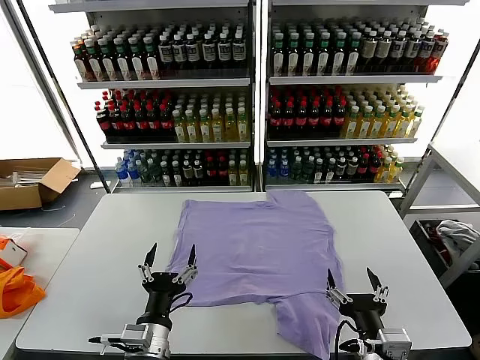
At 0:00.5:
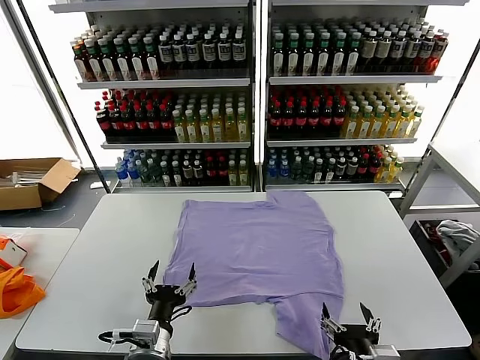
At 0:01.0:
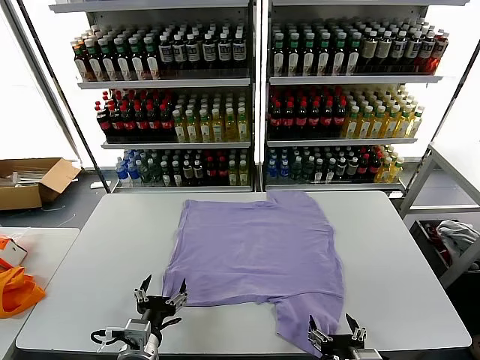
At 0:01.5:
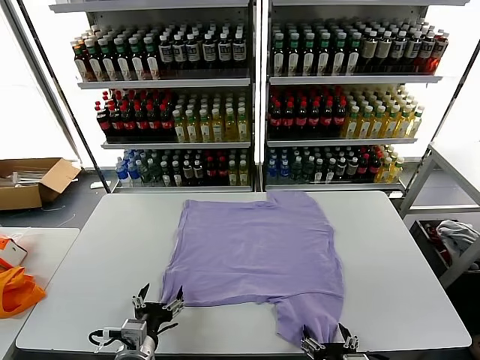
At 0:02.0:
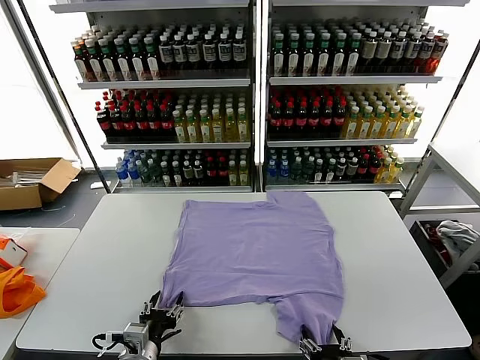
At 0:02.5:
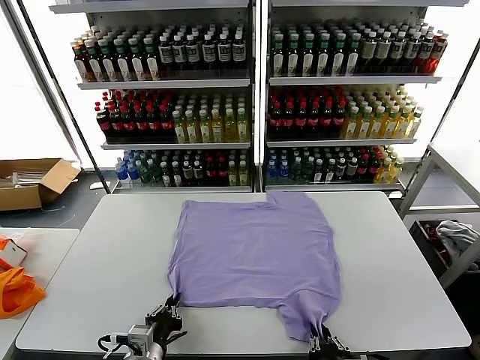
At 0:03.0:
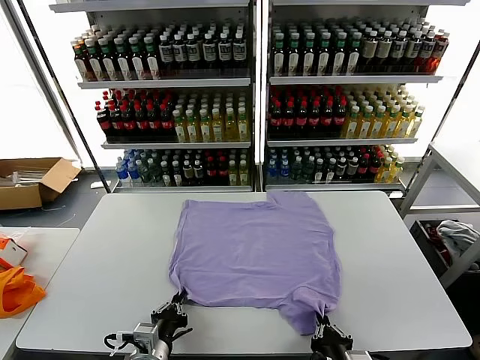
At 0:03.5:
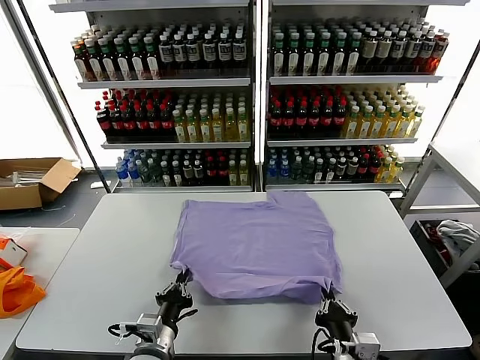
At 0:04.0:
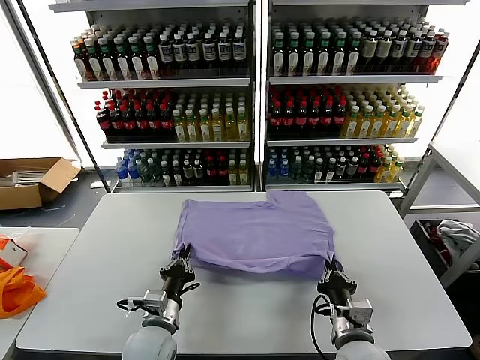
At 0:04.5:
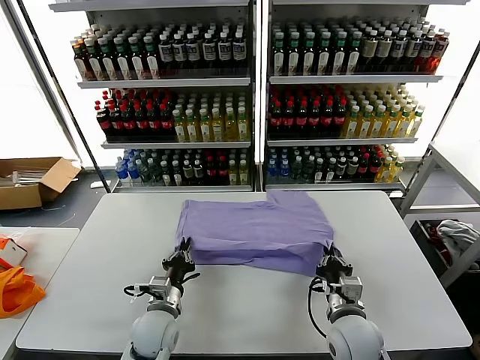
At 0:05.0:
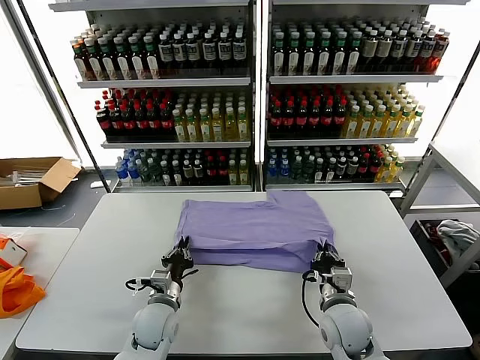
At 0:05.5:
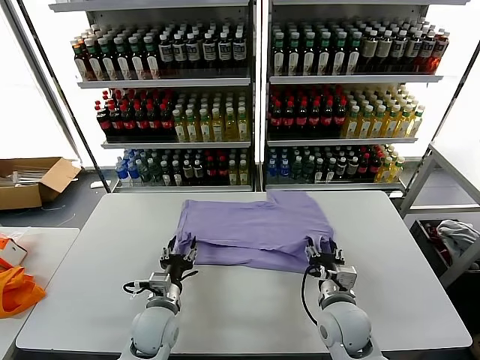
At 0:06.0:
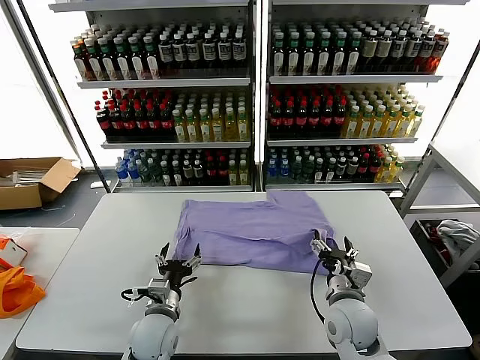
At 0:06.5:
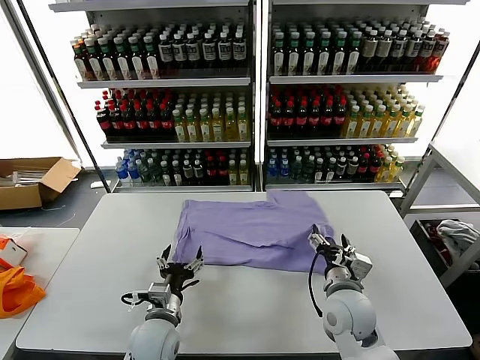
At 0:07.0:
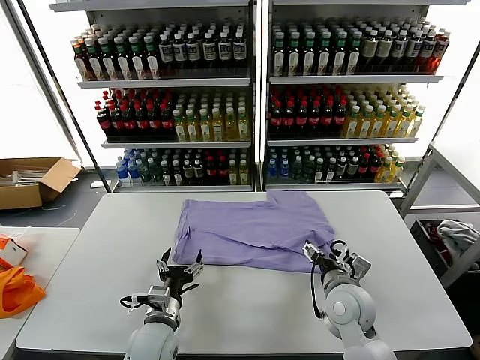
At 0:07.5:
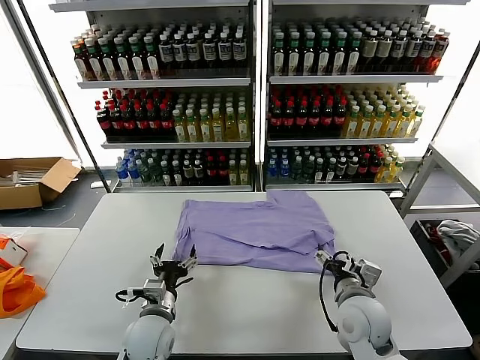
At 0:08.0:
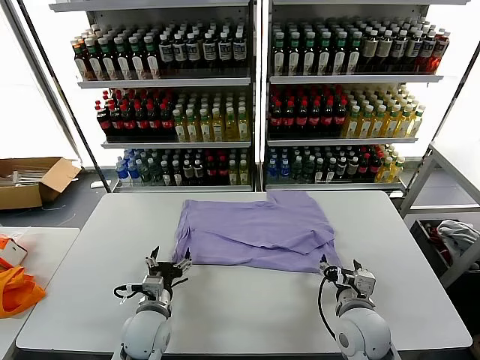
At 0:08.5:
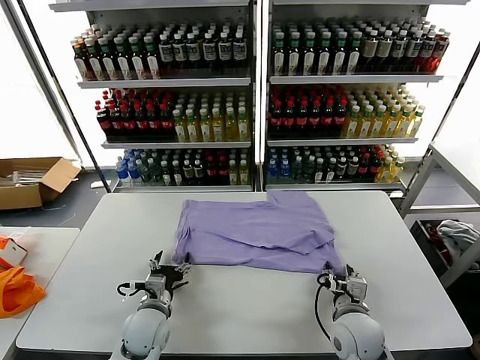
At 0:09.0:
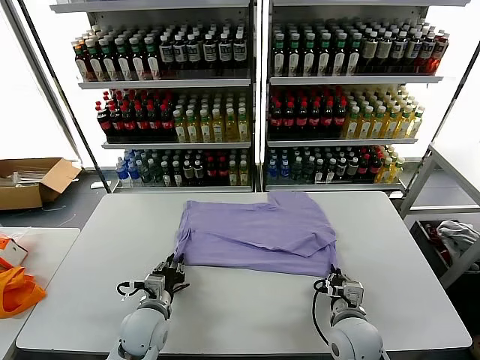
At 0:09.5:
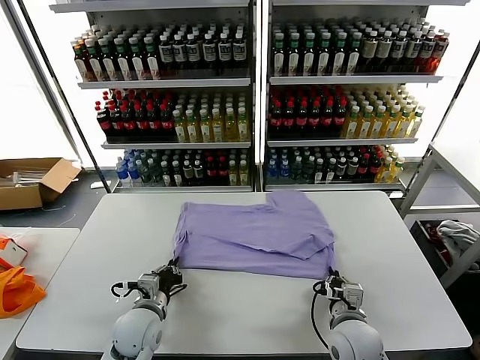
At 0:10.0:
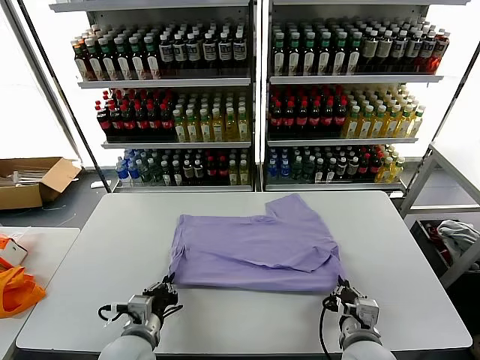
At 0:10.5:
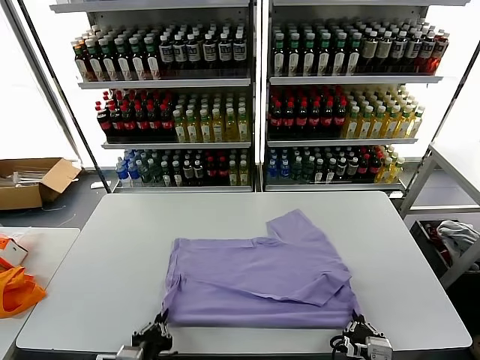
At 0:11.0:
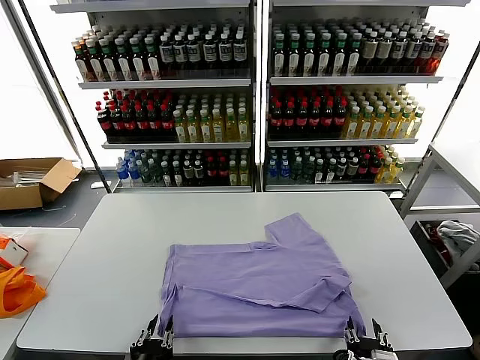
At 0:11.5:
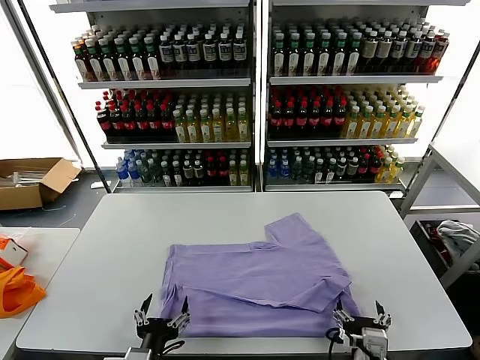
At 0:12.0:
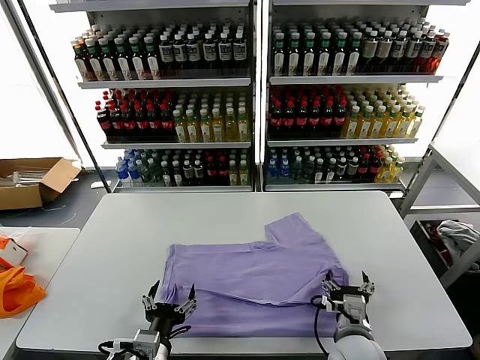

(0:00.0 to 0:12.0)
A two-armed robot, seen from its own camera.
Task of the whole recording: fold and organize the clothes.
Step, 0:00.0 - 0:03.0: use both grippers simultaneously to clamp the lower edge of the clothing fabric.
Step, 0:03.5 - 0:06.5: use both grippers to drag the lower edge of the fabric forward and fold it over the upper edge.
Step, 0:07.0 - 0:11.0: Drag the clothes downward with both gripper.
0:02.0 - 0:04.0: The left gripper shifts roughly 10 cm forward, and closes. The right gripper shifts roughly 10 cm forward, and closes up.
0:04.0 - 0:06.0: The left gripper opens up, while the right gripper moves forward, roughly 5 cm, and opens its fingers.
0:08.0 - 0:10.0: The grippers both shift backward by about 5 cm. The left gripper closes. Meanwhile the right gripper closes its fingers.
0:10.0 - 0:12.0: The left gripper goes approximately 5 cm backward, and opens, while the right gripper shifts by approximately 5 cm, and opens.

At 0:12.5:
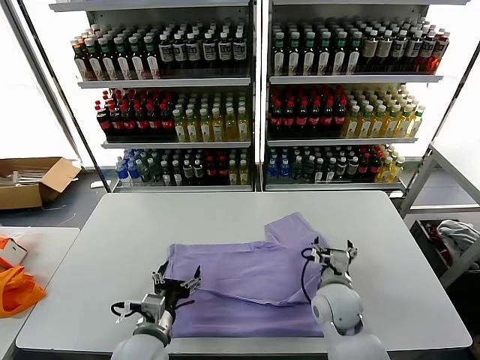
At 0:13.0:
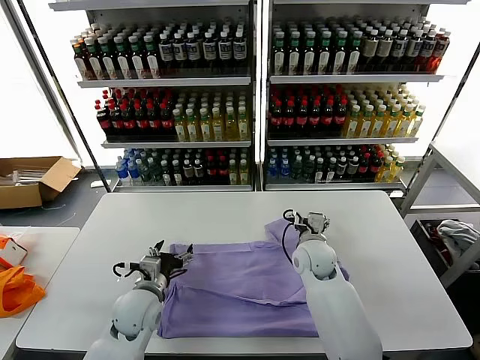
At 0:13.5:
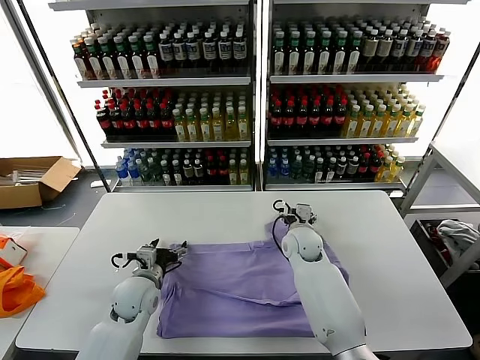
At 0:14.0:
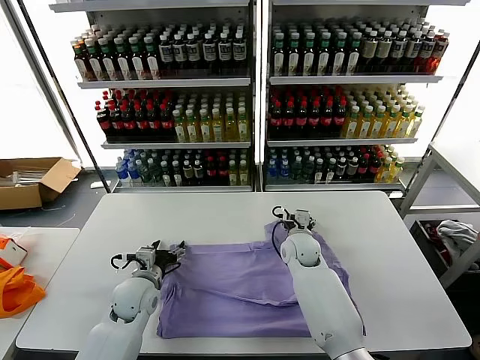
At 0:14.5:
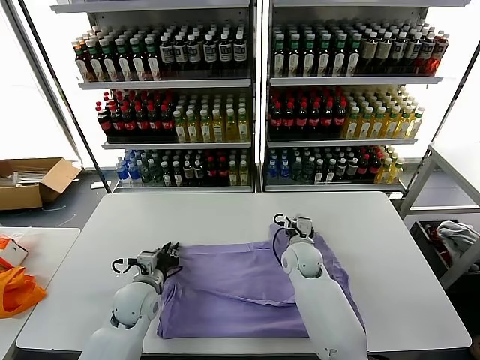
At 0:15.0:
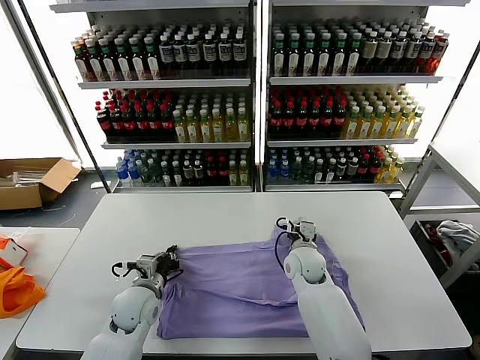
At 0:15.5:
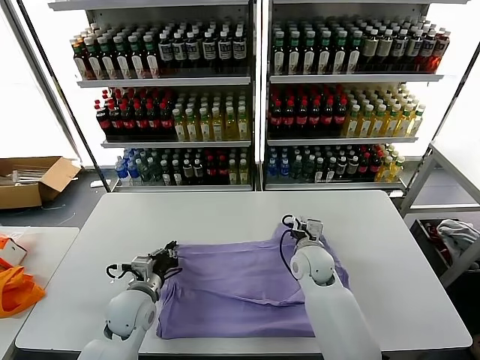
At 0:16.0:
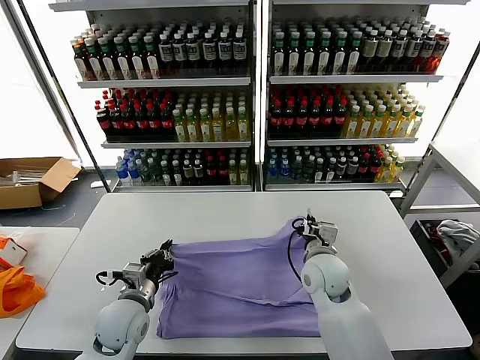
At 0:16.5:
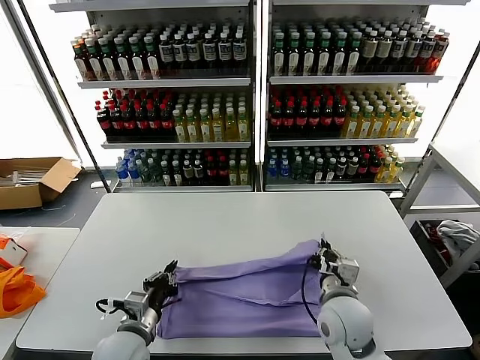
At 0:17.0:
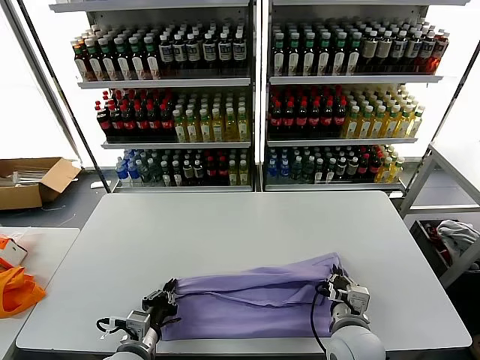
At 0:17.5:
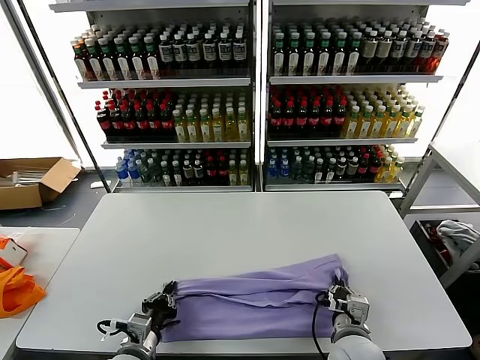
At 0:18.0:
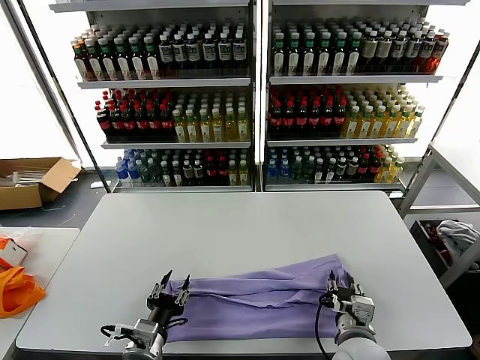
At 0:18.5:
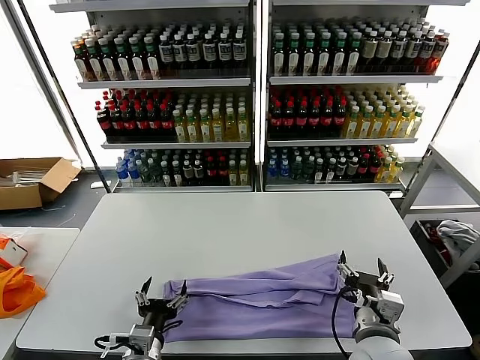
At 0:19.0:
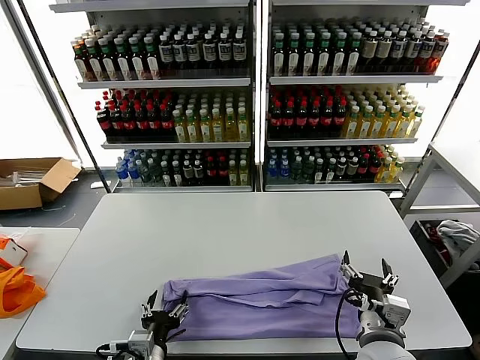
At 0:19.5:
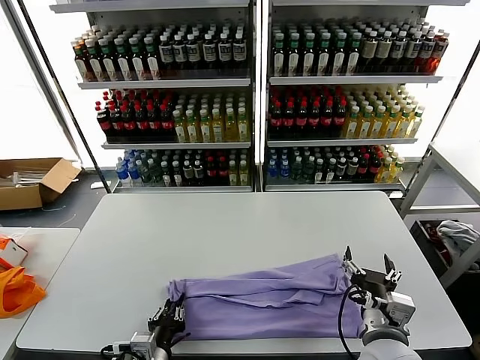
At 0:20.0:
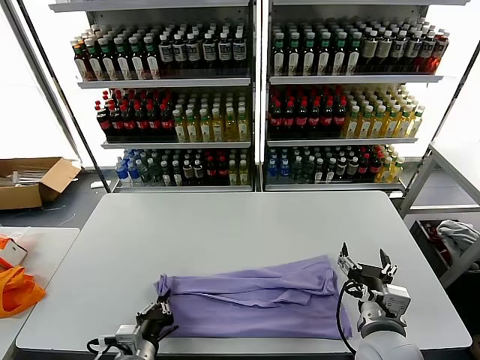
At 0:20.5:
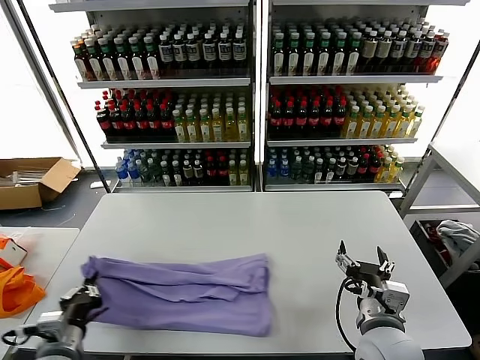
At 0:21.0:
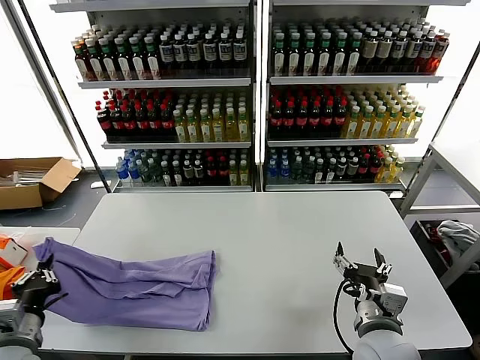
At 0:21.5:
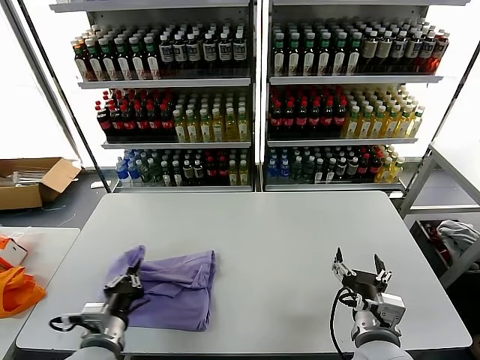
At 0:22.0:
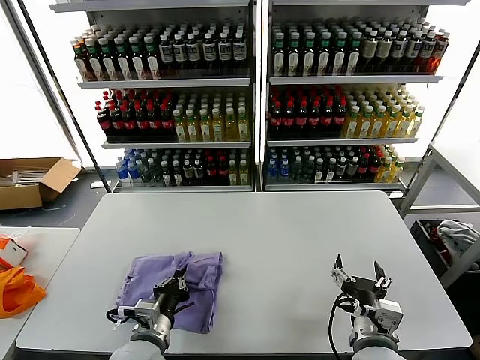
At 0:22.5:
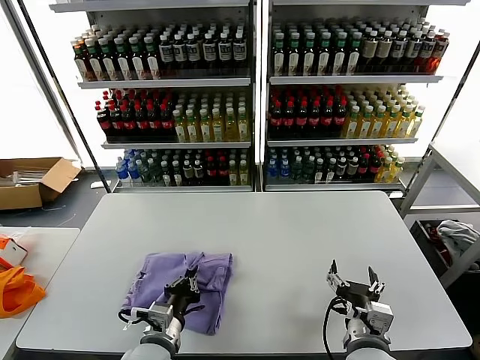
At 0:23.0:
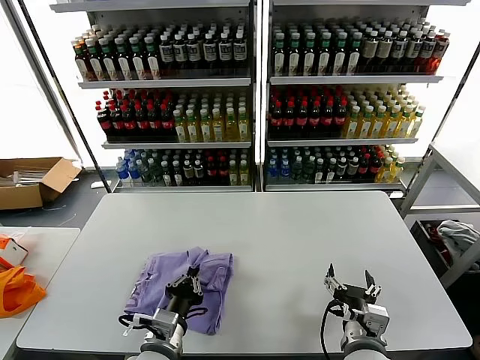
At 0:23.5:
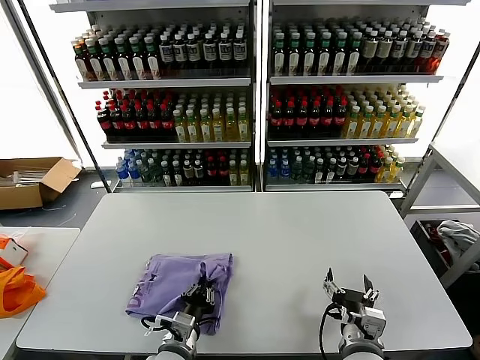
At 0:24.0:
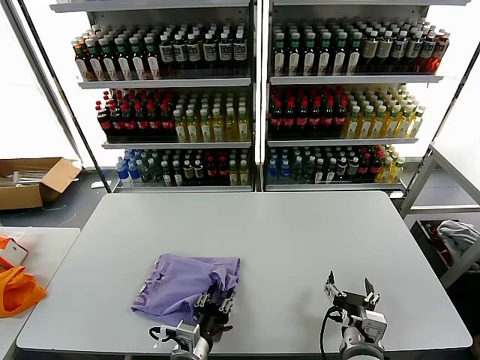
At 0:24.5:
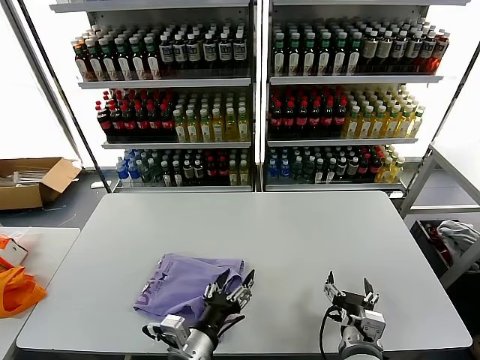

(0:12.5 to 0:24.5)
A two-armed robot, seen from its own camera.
Task of the whole recording: fold and organize the clothes.
Step, 0:12.5 - 0:15.5: use both grippers simultaneously to clamp the upper edge of the clothing fabric.
Step, 0:16.0 - 0:18.0: use both grippers to drag the upper edge of the fabric backward and fold it over the lower edge.
Step, 0:18.5 - 0:19.5: use the left gripper to clamp the left edge of the fabric.
Step, 0:20.0 - 0:24.0: use the left gripper to drag the left edge of the fabric to the left and folds it over the right edge.
0:12.5 - 0:14.5: The left gripper moves forward and to the left, approximately 15 cm, and closes up; the right gripper travels forward by some 10 cm, and closes its fingers.
0:14.5 - 0:16.5: The left gripper is displaced backward by approximately 10 cm; the right gripper is displaced backward by about 20 cm.
0:16.5 - 0:18.5: Both grippers travel together backward, approximately 5 cm. The right gripper opens. Meanwhile the left gripper opens up.
0:18.5 - 0:20.5: The left gripper goes some 15 cm to the left, and closes up.
0:20.5 - 0:22.5: The left gripper is displaced to the right by roughly 15 cm.
0:22.5 - 0:24.5: The left gripper goes some 5 cm to the right, and opens.

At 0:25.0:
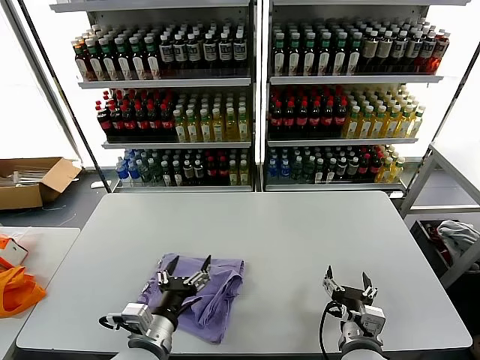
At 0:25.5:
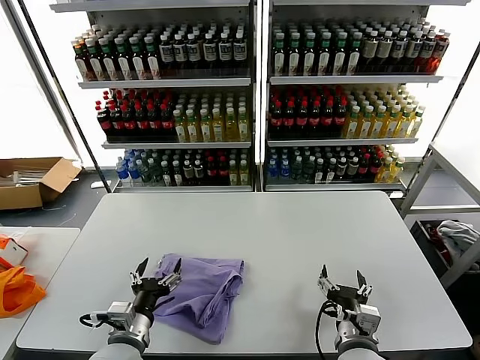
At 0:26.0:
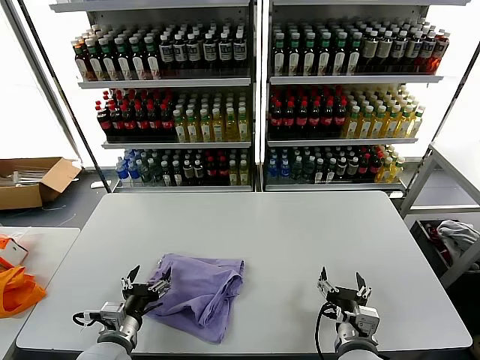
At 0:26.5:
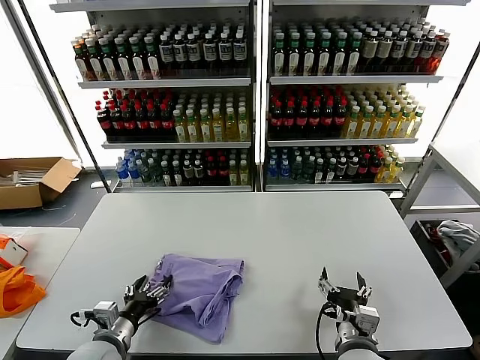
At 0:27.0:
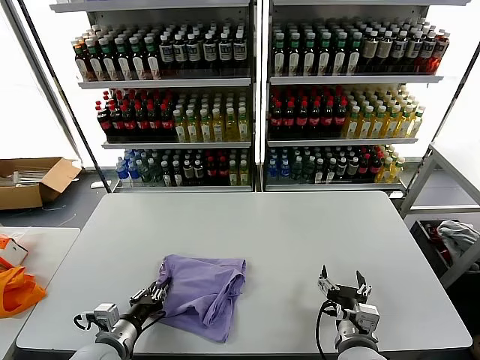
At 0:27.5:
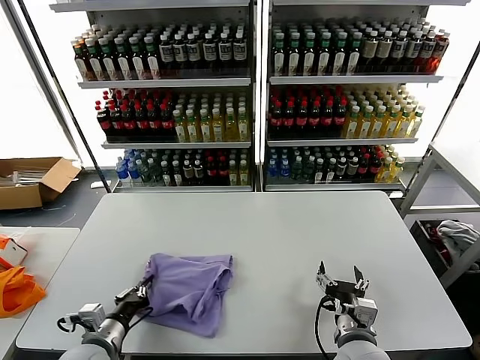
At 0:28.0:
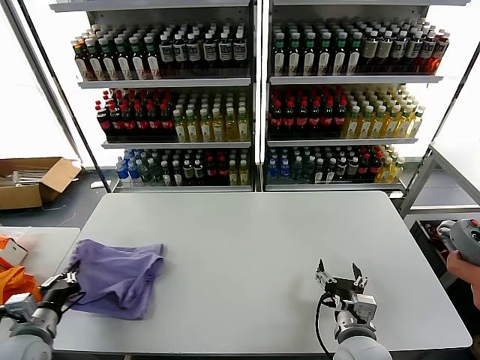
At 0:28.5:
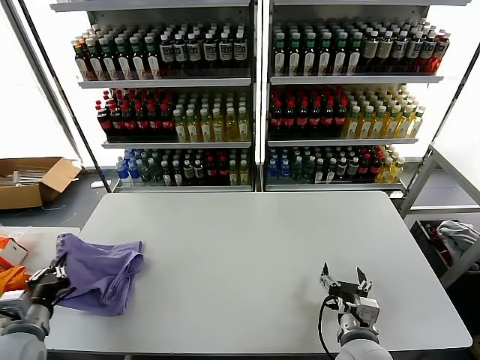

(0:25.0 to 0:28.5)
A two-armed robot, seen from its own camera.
Task of the whole recording: fold and organize the clothes.
0:25.0 - 0:27.0: The left gripper goes approximately 15 cm to the left and downward, and closes up.
0:27.0 - 0:28.5: The left gripper is displaced to the left and upward by some 15 cm.
